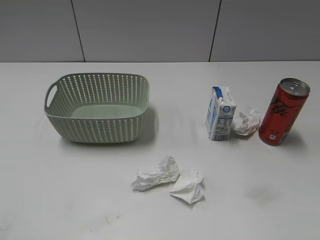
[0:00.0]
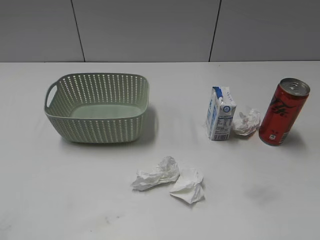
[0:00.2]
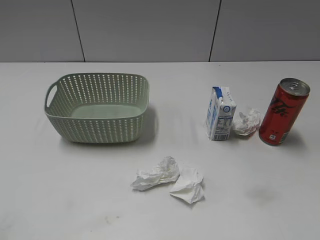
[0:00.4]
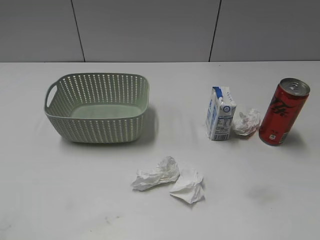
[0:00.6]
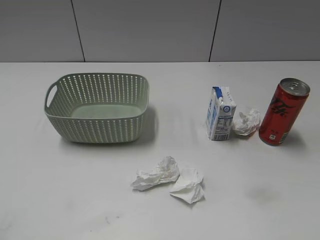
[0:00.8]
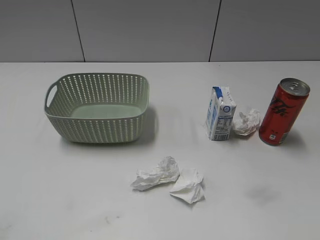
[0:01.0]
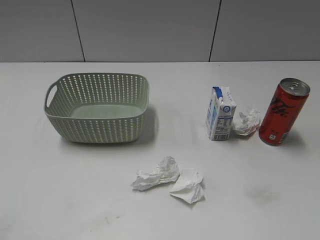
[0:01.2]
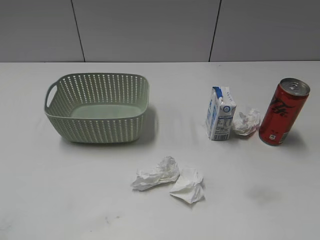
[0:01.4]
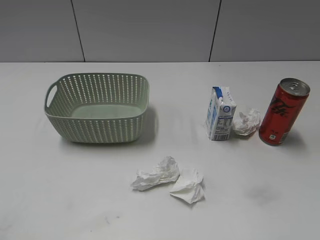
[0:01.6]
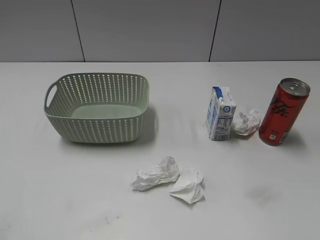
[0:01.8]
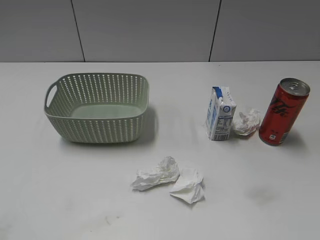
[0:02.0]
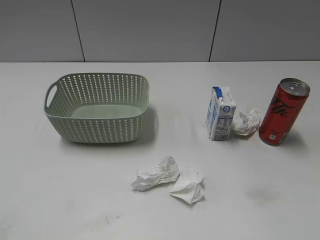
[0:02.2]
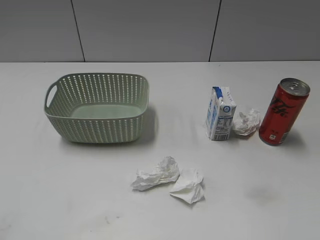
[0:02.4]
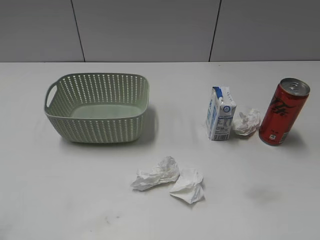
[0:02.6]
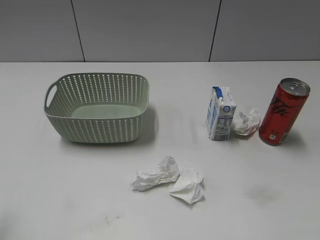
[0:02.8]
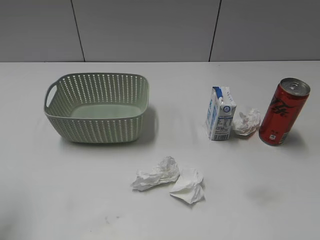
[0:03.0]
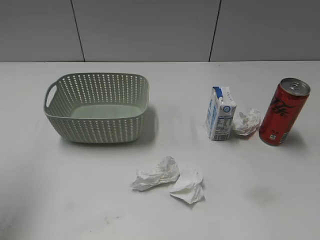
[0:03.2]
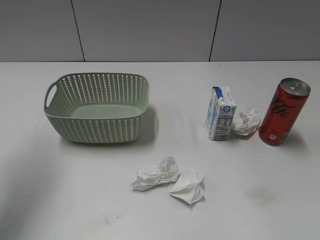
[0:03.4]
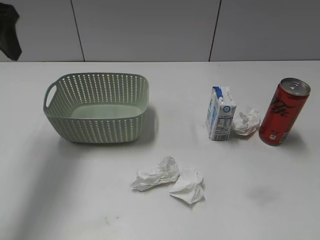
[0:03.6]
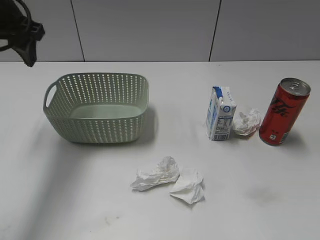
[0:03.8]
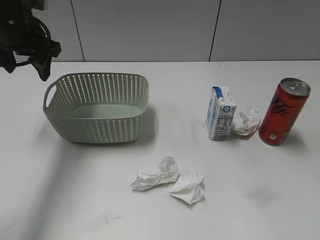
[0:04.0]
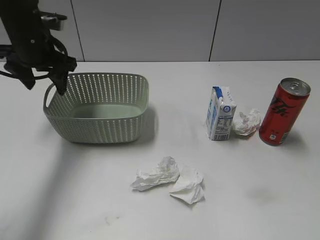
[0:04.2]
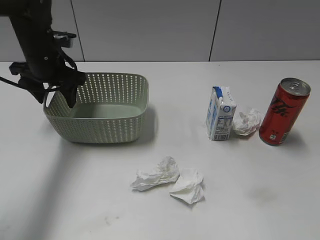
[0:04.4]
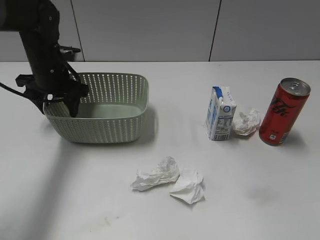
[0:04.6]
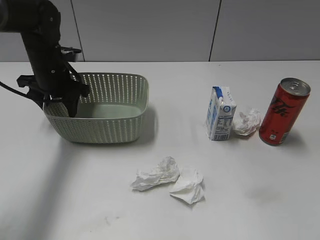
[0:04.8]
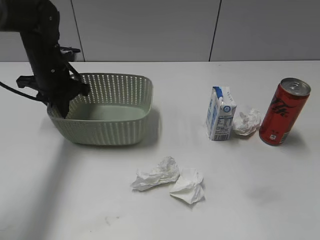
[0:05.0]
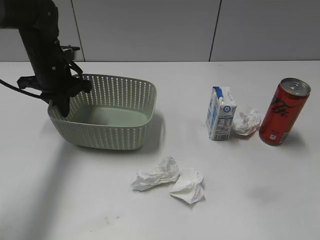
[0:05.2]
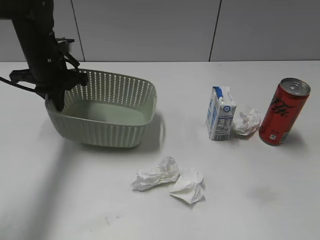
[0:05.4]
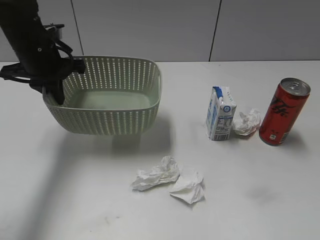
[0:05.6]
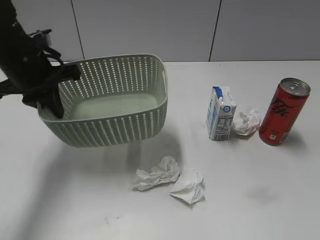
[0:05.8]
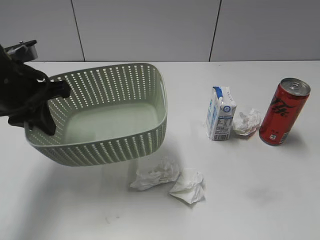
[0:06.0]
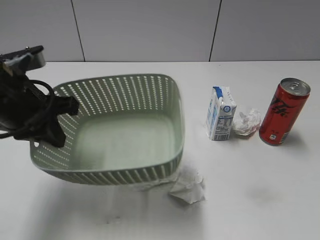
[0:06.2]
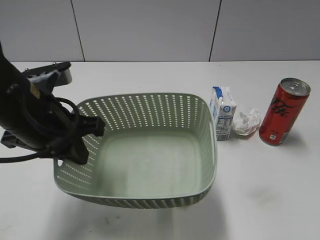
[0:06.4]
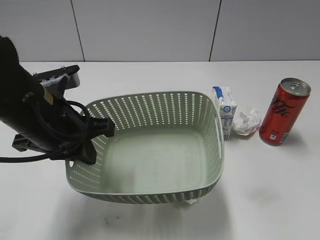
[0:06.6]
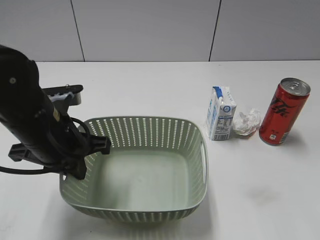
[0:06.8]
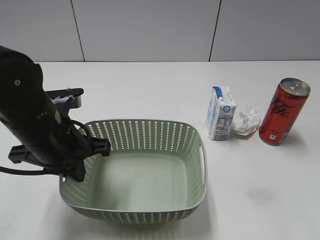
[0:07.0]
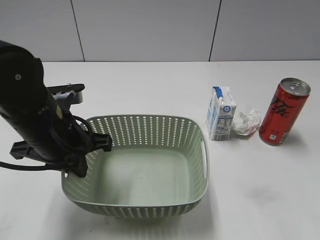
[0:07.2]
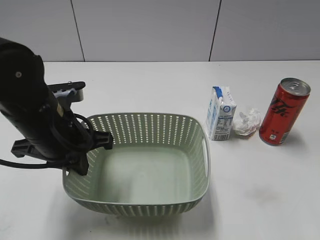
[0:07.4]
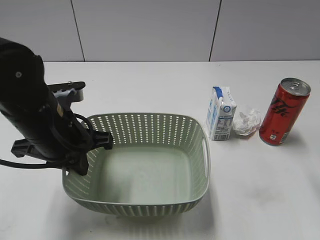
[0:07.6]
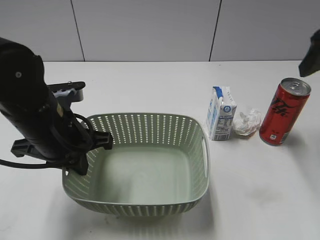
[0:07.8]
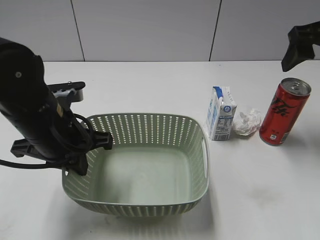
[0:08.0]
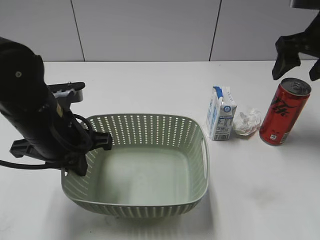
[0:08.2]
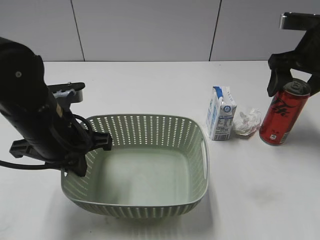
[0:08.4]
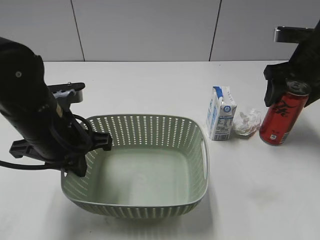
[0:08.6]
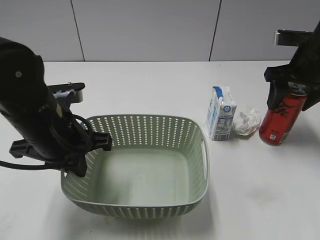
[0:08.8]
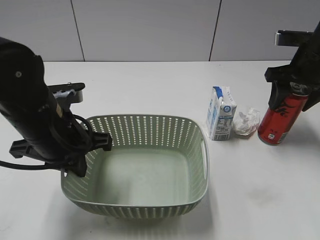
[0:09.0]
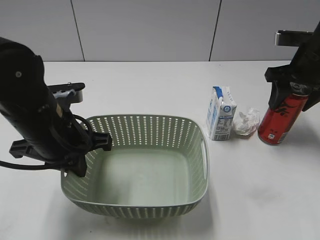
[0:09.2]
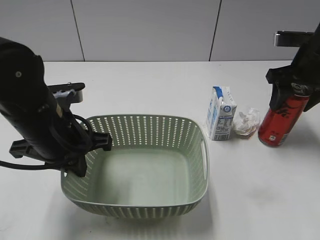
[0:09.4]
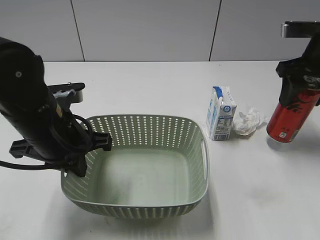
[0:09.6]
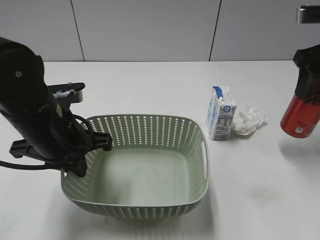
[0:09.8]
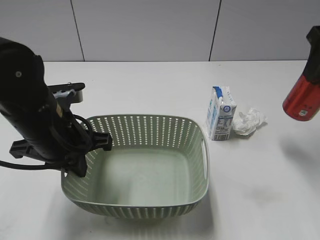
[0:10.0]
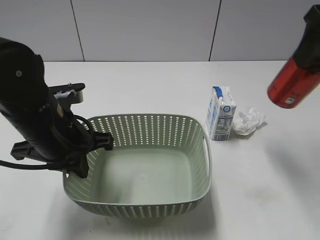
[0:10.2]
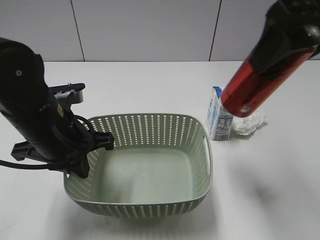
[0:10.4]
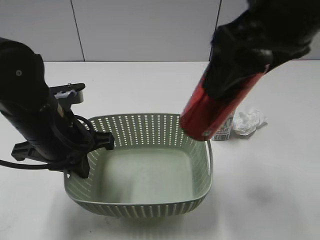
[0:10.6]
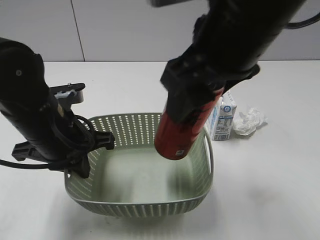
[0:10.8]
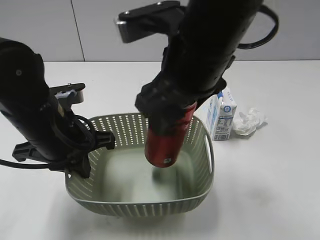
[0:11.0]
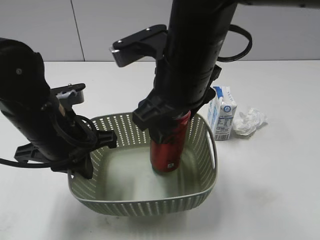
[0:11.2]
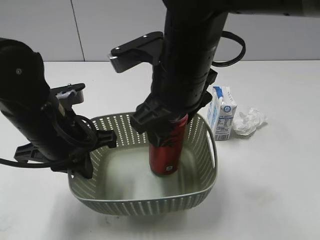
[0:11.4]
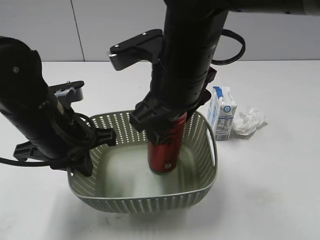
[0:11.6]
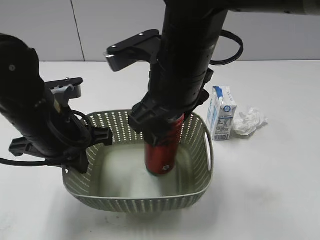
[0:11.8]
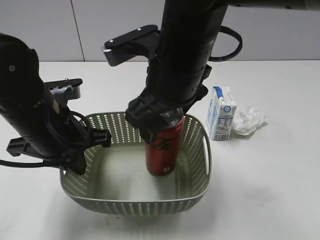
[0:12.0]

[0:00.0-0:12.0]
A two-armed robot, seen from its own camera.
Step, 3.6 to 5.0 s: Grasp the basket with left gripper.
Step, 5.2 to 7.6 s: Lift the basket with left gripper.
Step, 7.8 to 9.2 s: Grasp the cola can with right gripper.
Step, 9.4 to 12.0 s: Place the cola can in the basket with right gripper.
3.0 to 4.4 s: The left gripper goes approximately 30 cm forward, downward and to the right.
4.4 to 6.0 s: The left gripper heads backward, covering approximately 15 cm, and closes its fingers.
6.0 to 7.6 s: The right gripper goes approximately 25 cm forward, and opens up, while the left gripper shifts some 5 cm to the right.
7.6 to 9.0 s: The right gripper is displaced forward and downward by roughly 15 cm, and closes its fingers.
9.0 to 10.4 s: The right gripper goes some 25 cm upward, backward and to the left.
10.4 to 12.0 s: The right gripper goes some 15 cm to the left and downward, and opens its fingers.

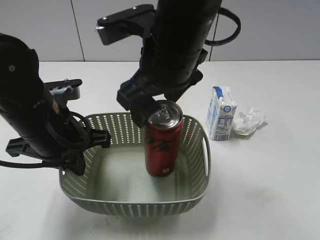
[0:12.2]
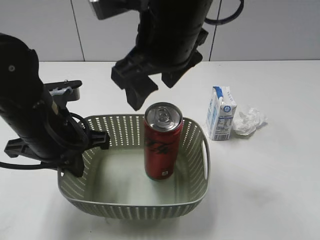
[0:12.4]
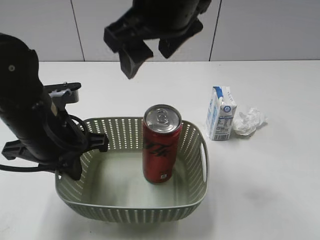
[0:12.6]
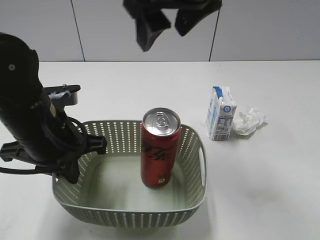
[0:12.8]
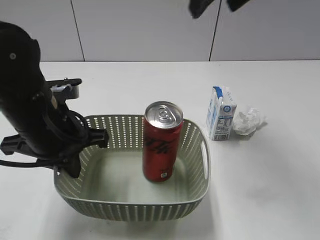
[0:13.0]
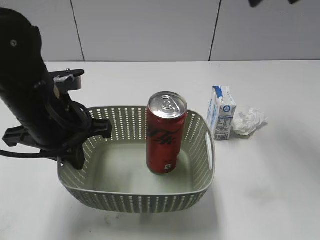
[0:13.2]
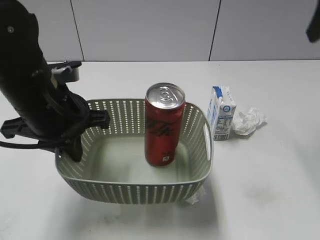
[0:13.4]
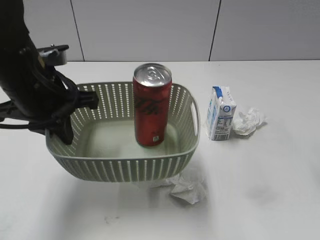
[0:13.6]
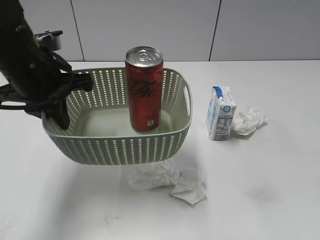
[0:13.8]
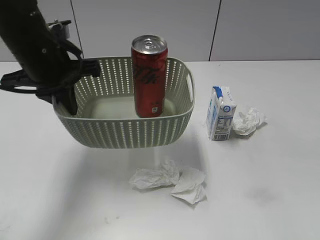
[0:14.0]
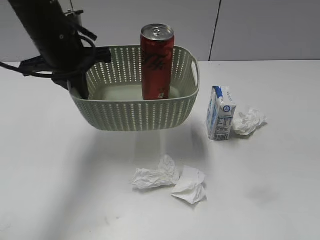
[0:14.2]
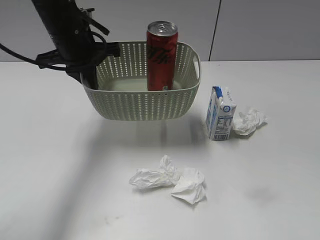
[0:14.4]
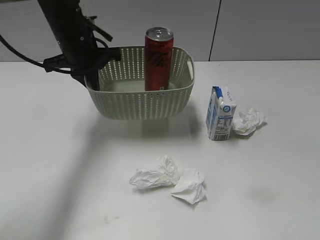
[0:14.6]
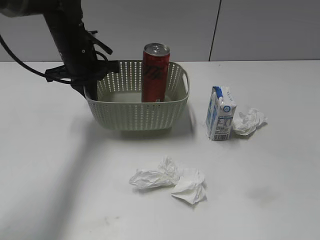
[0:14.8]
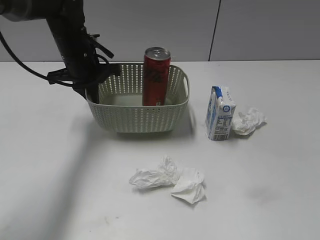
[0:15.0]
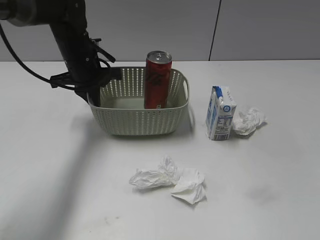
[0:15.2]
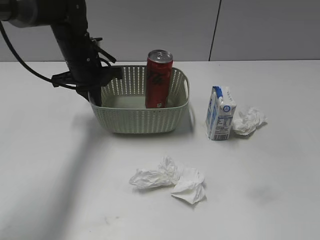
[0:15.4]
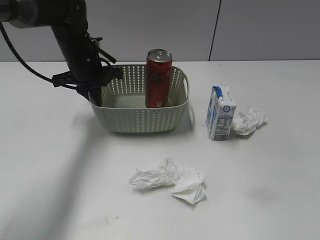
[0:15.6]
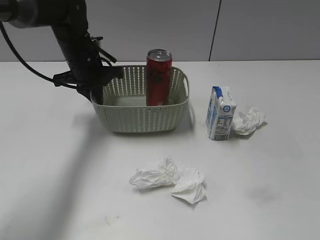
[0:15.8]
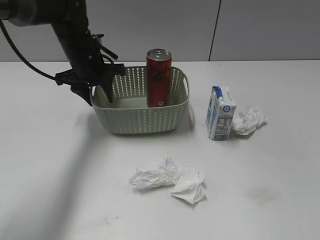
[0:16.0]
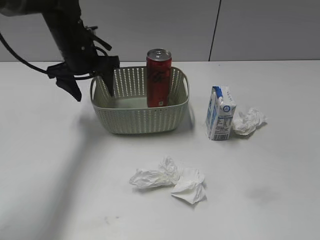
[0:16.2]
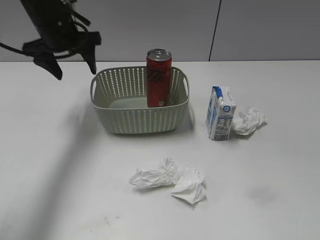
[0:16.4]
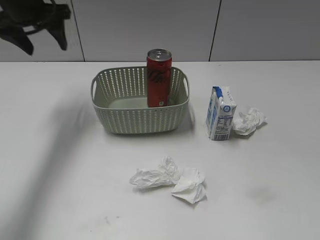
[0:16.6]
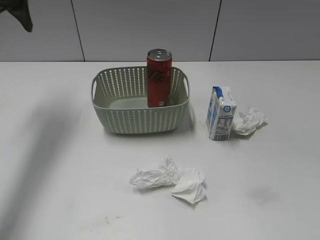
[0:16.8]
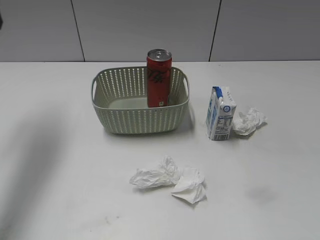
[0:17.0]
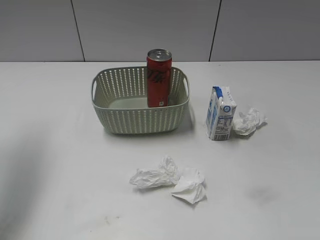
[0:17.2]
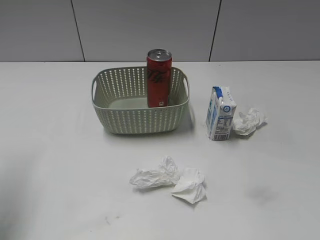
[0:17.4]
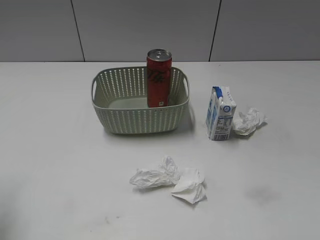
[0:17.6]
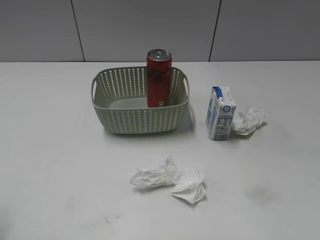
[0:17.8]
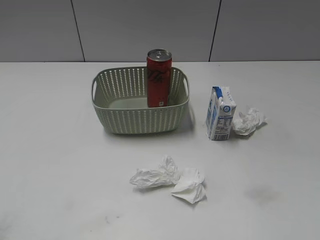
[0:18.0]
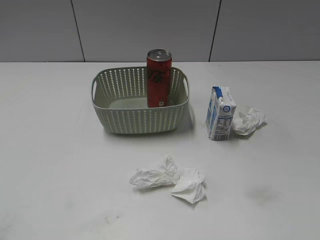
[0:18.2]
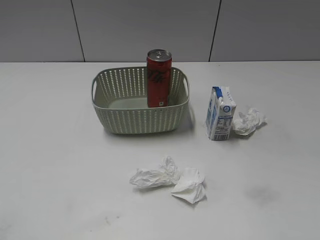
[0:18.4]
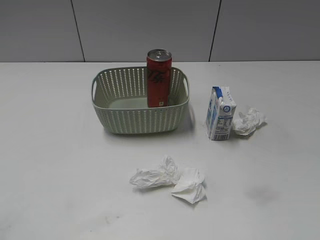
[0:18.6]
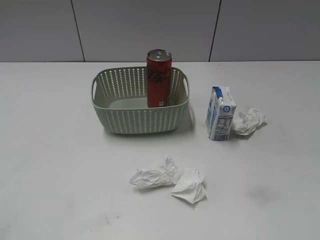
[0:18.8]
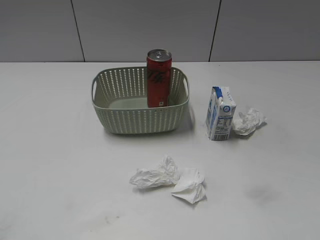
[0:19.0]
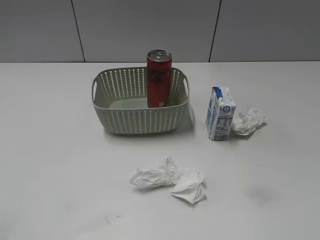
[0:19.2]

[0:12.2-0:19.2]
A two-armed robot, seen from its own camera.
Step, 12.2 to 16.0 s: Place the basket on the table with left gripper.
12.2 to 13.6 s: The right gripper travels to the right by some 25 cm; the left gripper goes roughly 5 cm upward.
13.6 to 15.0 s: The left gripper heads forward and downward, covering some 15 cm. Meanwhile the right gripper travels backward by approximately 20 cm.
15.0 to 16.4 s: The left gripper is displaced upward and to the left by roughly 10 cm, and opens its fingers.
16.4 to 17.8 s: The left gripper goes roughly 30 cm backward.

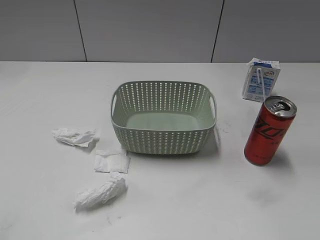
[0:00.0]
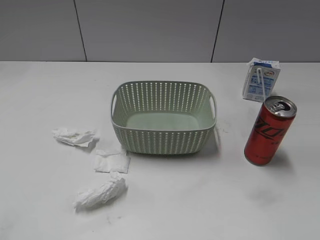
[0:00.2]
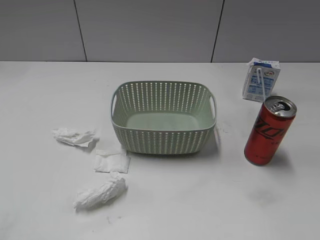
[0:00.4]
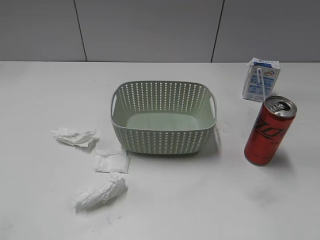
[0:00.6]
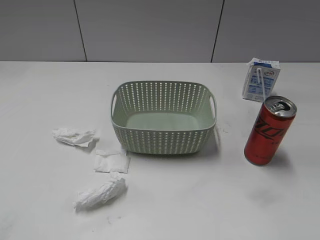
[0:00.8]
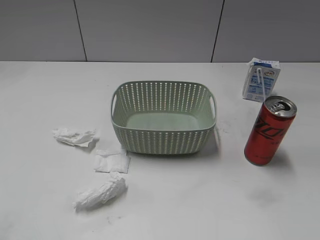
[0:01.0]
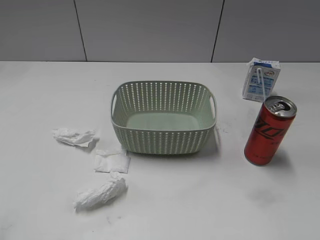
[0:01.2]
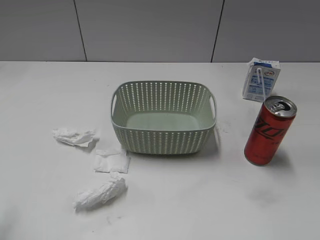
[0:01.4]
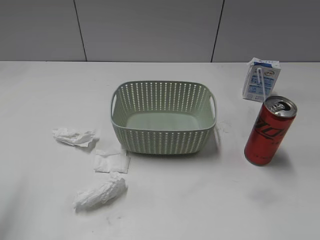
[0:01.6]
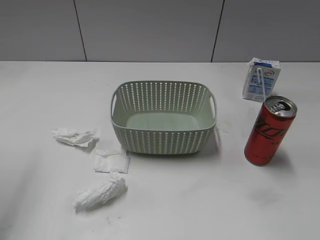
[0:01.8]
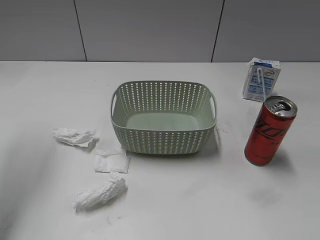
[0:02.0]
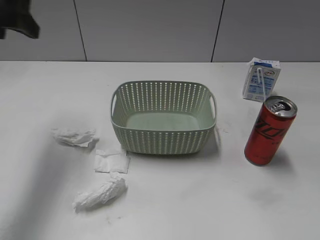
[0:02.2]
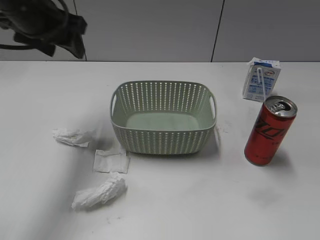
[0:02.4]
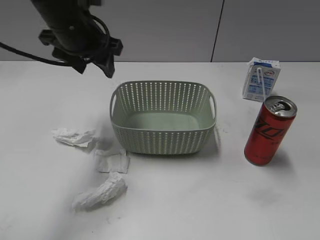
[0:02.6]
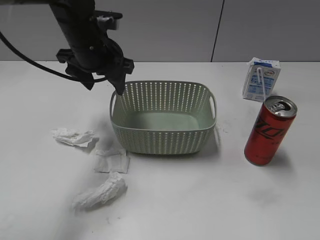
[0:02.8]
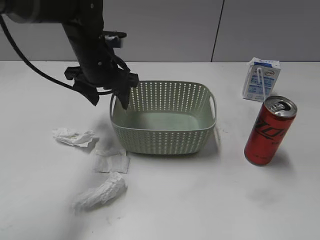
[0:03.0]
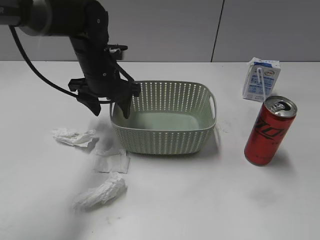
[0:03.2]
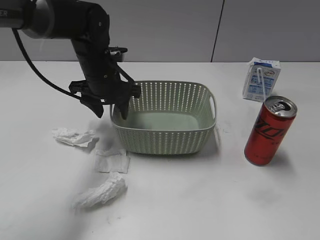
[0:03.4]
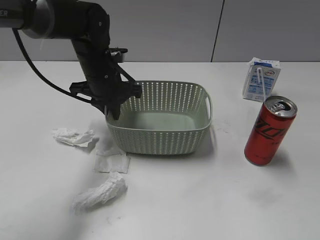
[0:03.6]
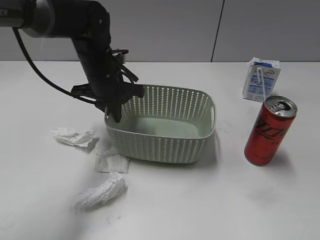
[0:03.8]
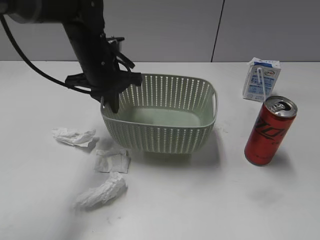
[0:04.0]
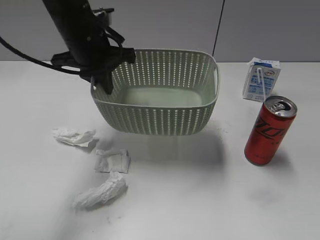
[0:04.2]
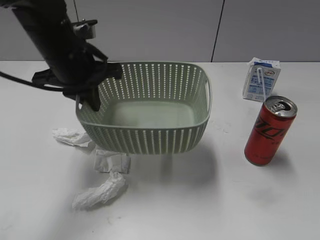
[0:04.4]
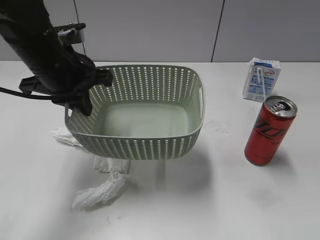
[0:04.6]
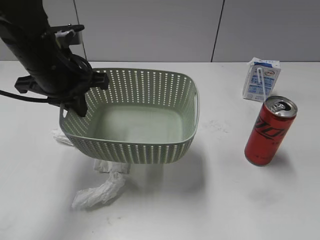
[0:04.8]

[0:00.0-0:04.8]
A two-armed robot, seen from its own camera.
Step, 2.2 to 3.6 s: Grasp the basket with left gripper.
1.6 to 3.2 s: The left gripper moves forward, to the right and downward, about 35 cm.
3.2 to 4.8 s: The left gripper shifts about 10 cm backward and upward, and closes; the right gripper goes roughly 10 cm forward and upward.
